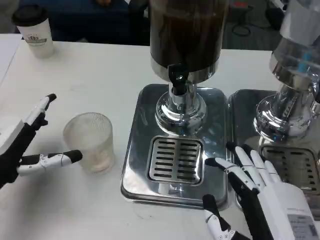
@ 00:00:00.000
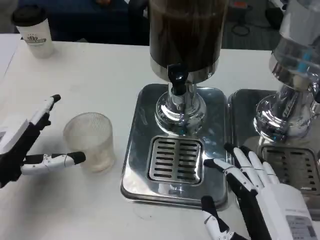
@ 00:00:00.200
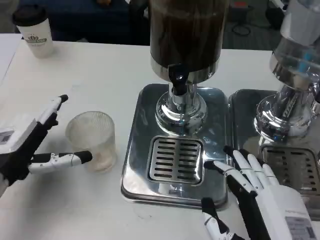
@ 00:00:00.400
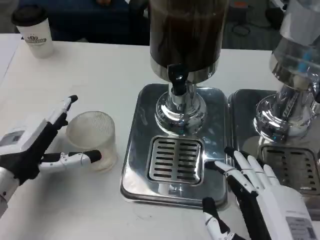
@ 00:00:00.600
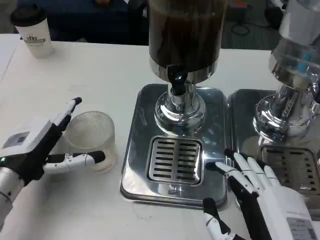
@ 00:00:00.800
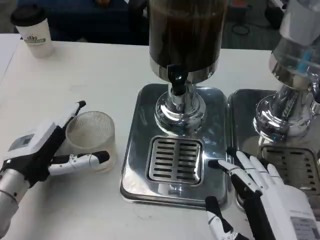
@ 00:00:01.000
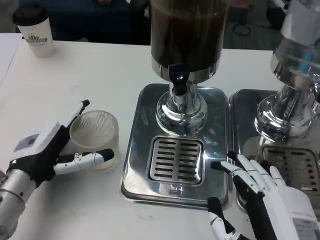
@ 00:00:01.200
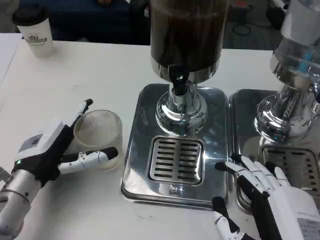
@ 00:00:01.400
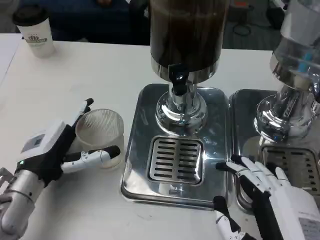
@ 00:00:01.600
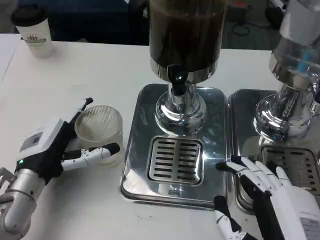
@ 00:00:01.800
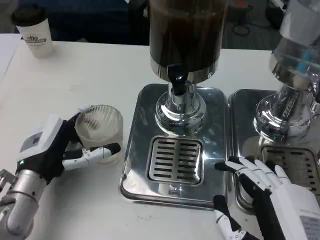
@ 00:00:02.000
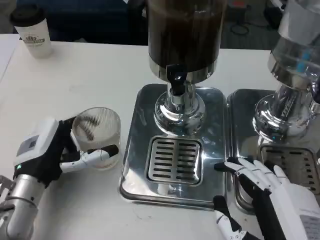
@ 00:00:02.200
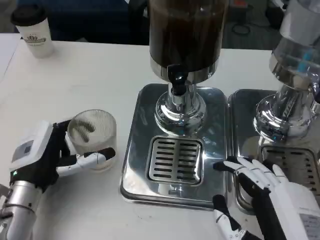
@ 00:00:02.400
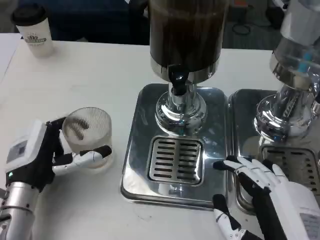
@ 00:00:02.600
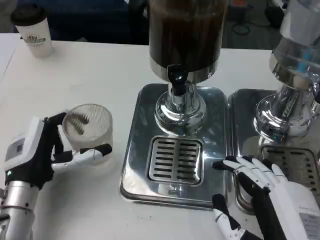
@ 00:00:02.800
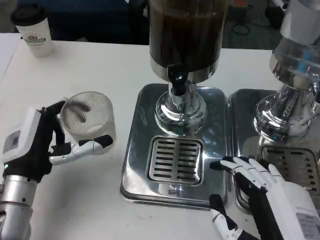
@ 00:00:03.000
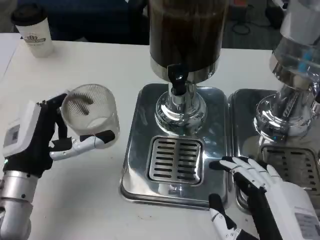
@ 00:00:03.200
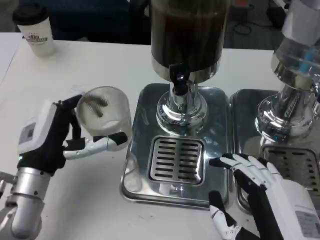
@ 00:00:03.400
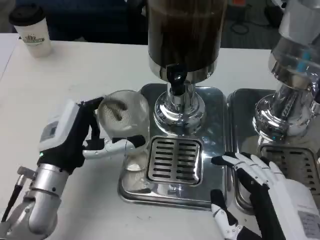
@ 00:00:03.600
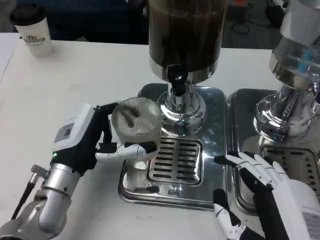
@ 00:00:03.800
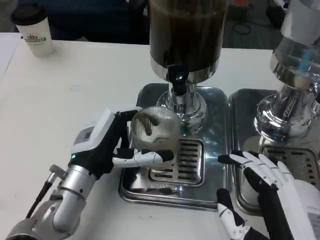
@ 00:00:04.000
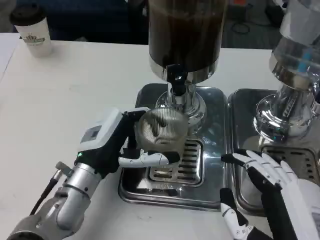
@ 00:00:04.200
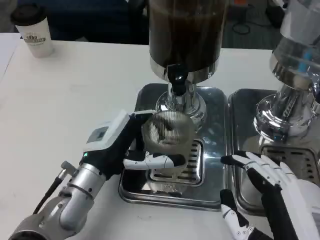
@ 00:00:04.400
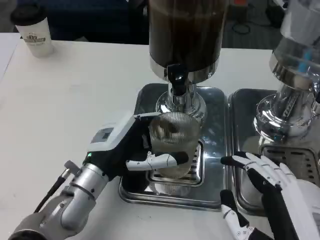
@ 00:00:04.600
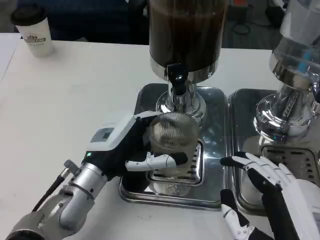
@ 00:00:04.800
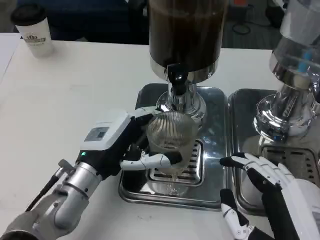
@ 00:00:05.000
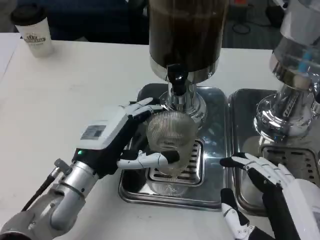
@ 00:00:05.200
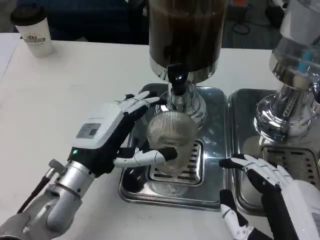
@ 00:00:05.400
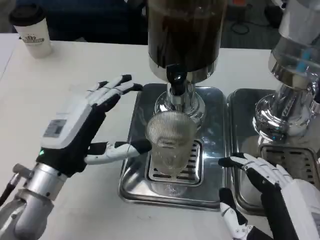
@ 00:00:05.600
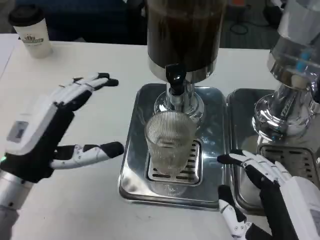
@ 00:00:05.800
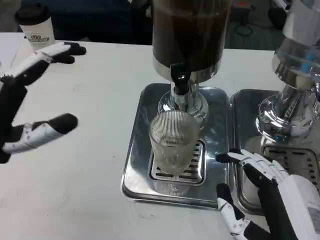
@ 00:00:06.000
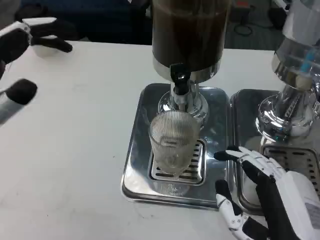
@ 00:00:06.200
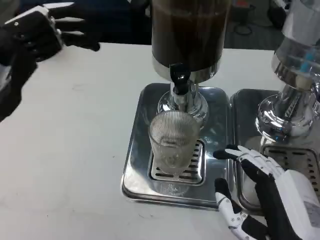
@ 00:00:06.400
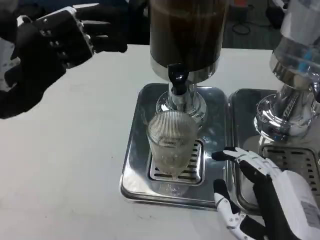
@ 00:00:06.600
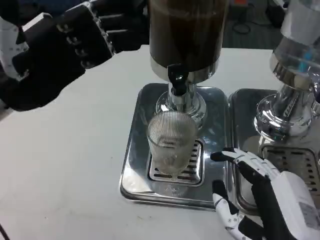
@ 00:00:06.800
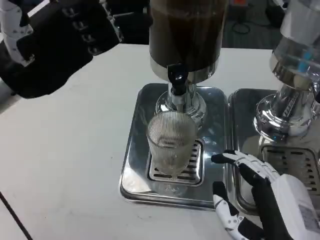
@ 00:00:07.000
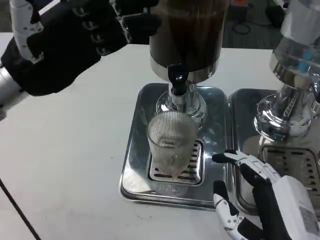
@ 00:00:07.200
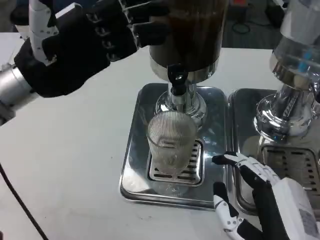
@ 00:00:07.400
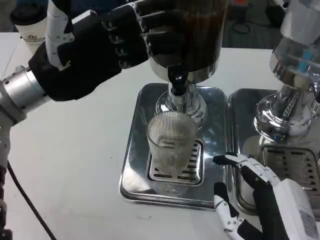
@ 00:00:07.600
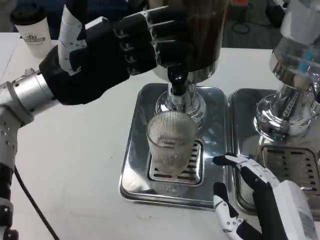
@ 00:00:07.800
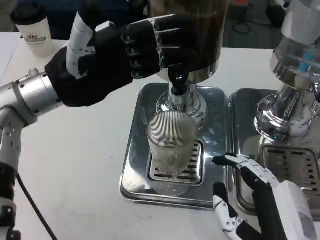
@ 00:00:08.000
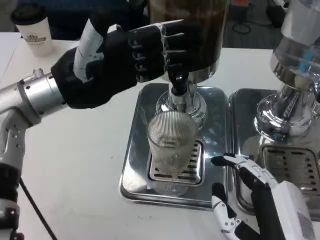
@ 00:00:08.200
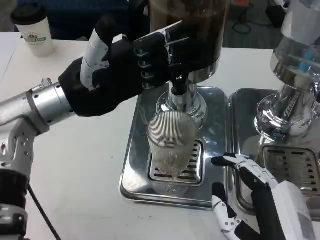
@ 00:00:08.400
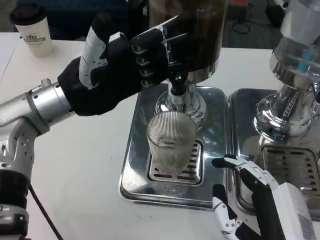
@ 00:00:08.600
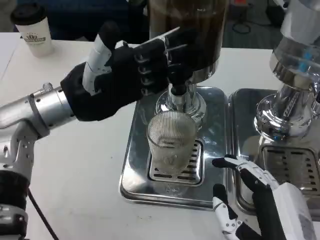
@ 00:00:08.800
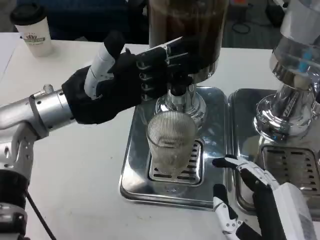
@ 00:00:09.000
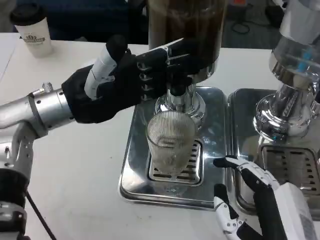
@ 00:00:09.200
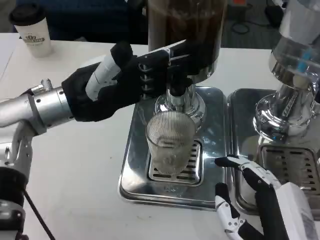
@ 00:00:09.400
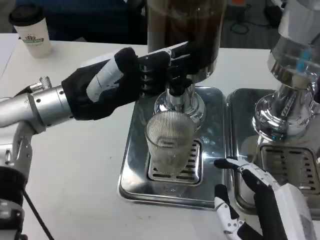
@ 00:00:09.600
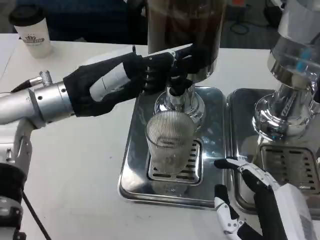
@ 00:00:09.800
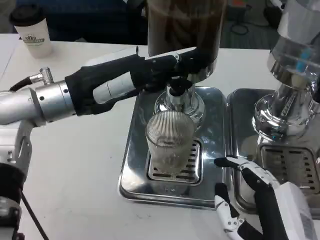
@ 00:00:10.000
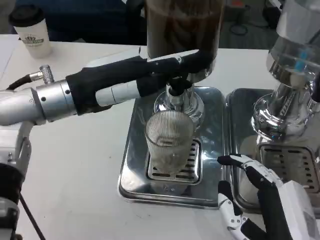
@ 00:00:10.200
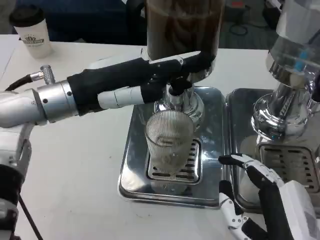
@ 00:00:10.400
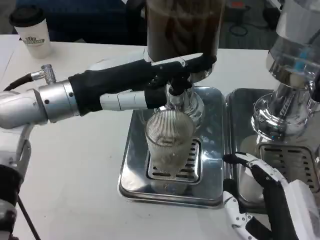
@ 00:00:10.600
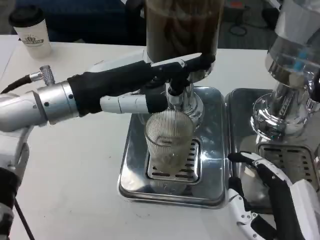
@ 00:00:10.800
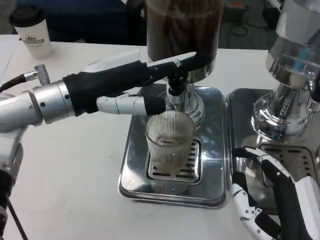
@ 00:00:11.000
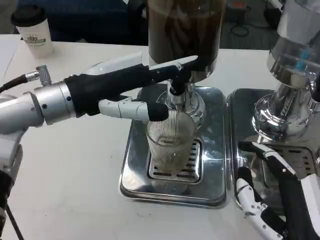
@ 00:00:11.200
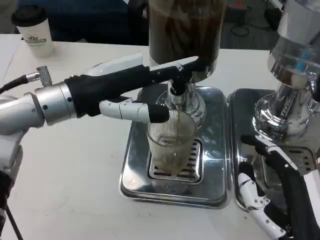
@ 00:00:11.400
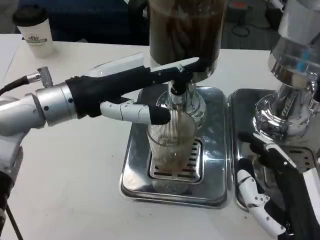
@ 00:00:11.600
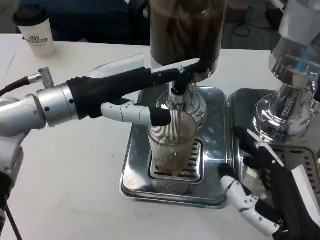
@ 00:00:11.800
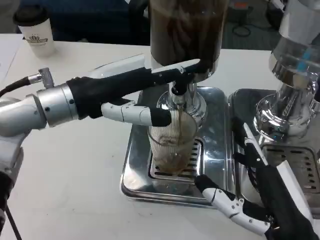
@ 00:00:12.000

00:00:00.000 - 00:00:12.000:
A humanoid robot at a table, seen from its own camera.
Task of the whole recording: Grasp the cup under the faucet to collect the drink, then remove the cup.
00:00:00.000 - 00:00:01.600: The left hand heads to the right, covering roughly 5 cm.
00:00:03.000 - 00:00:04.400: The left hand heads to the right, covering roughly 10 cm.
00:00:04.400 - 00:00:06.000: The left hand moves to the left, upward and backward, roughly 15 cm.
00:00:06.000 - 00:00:07.600: The left hand heads forward and upward, covering approximately 15 cm.

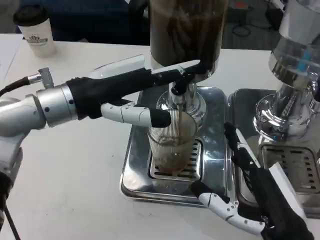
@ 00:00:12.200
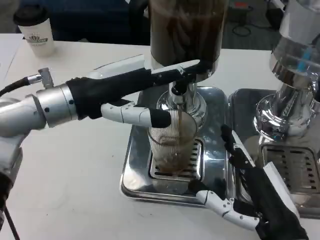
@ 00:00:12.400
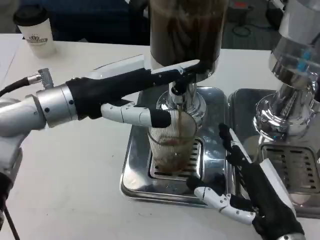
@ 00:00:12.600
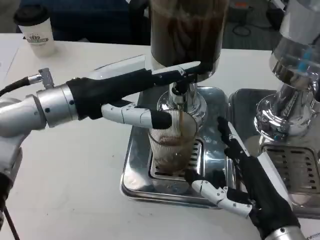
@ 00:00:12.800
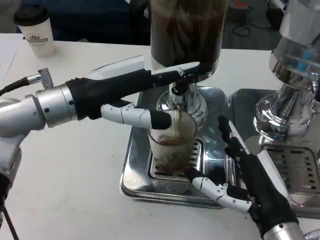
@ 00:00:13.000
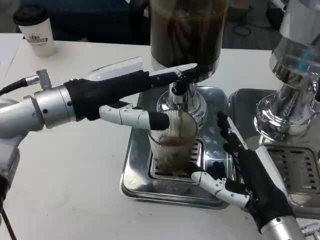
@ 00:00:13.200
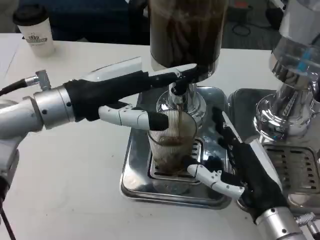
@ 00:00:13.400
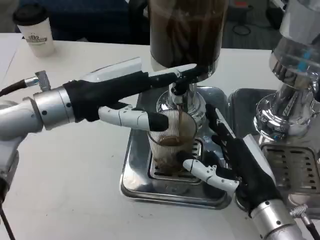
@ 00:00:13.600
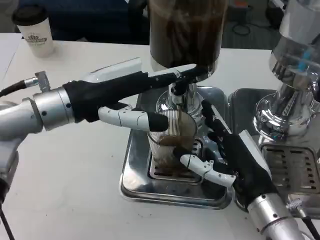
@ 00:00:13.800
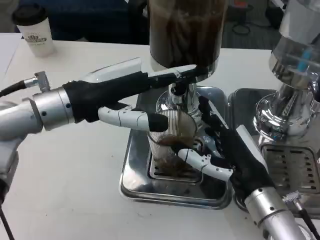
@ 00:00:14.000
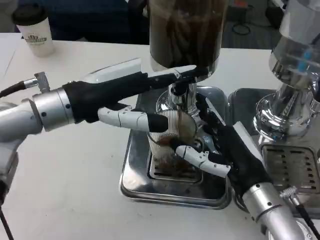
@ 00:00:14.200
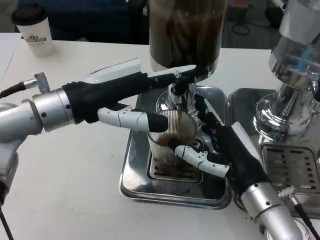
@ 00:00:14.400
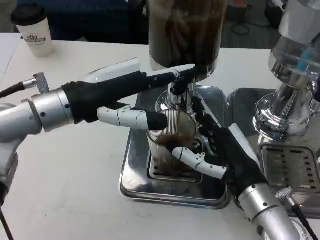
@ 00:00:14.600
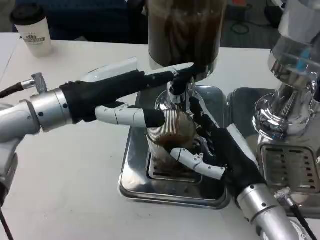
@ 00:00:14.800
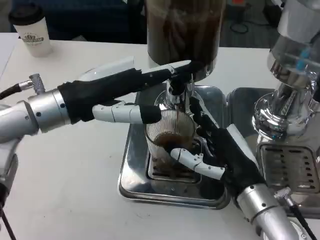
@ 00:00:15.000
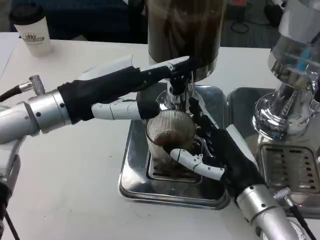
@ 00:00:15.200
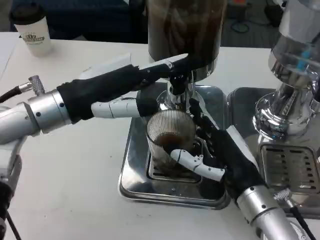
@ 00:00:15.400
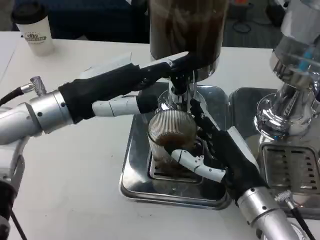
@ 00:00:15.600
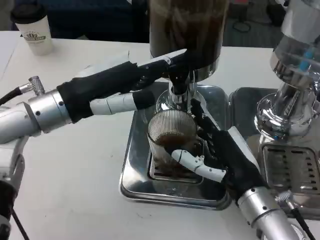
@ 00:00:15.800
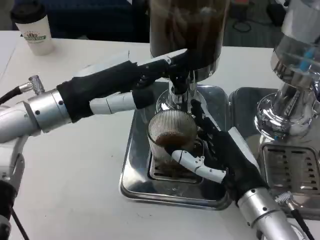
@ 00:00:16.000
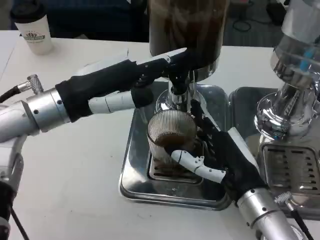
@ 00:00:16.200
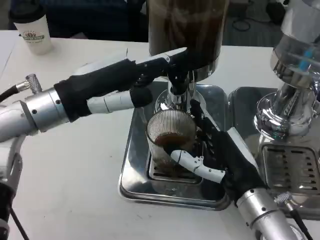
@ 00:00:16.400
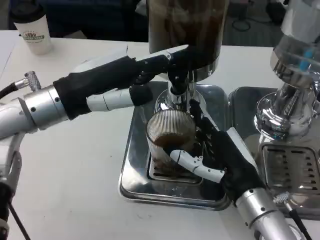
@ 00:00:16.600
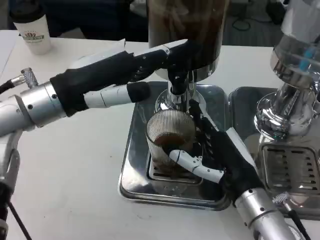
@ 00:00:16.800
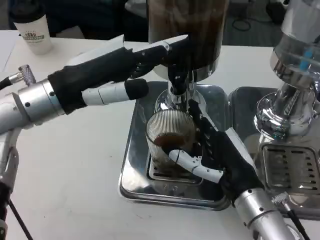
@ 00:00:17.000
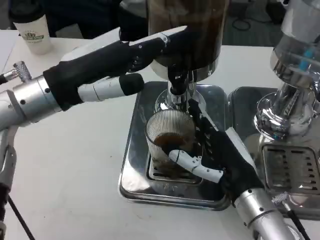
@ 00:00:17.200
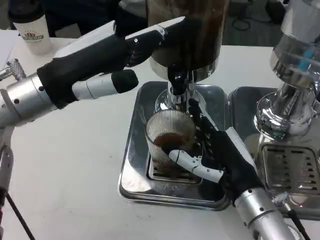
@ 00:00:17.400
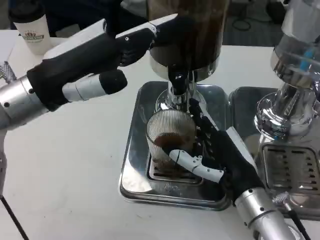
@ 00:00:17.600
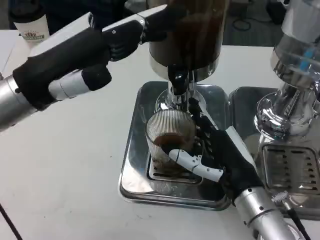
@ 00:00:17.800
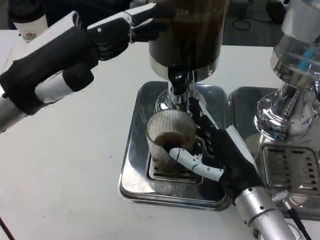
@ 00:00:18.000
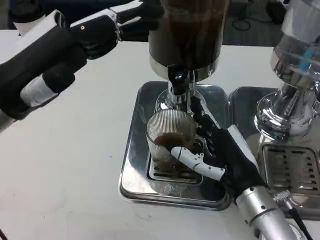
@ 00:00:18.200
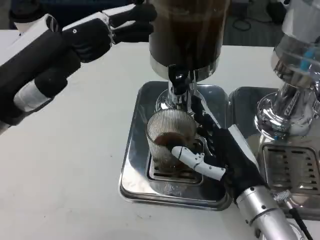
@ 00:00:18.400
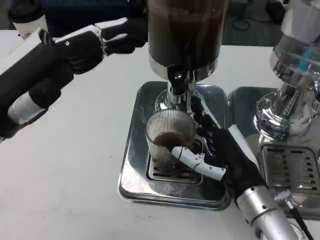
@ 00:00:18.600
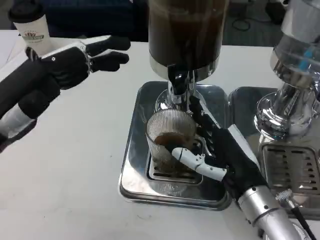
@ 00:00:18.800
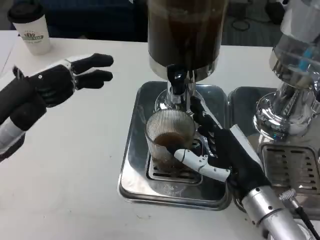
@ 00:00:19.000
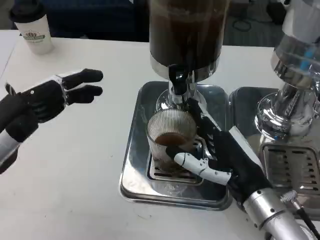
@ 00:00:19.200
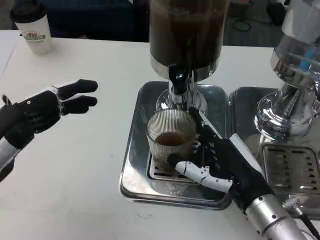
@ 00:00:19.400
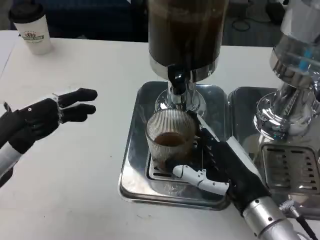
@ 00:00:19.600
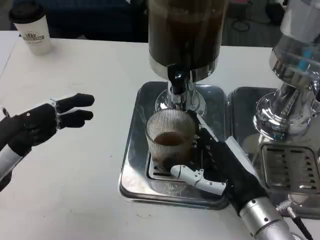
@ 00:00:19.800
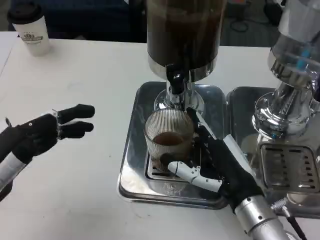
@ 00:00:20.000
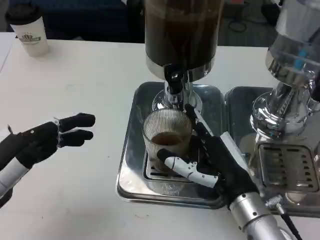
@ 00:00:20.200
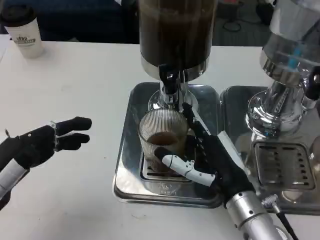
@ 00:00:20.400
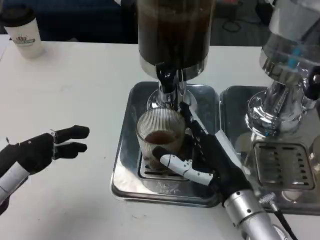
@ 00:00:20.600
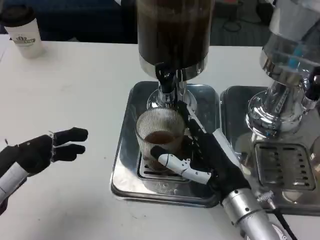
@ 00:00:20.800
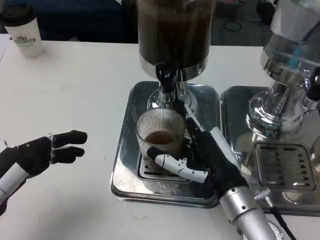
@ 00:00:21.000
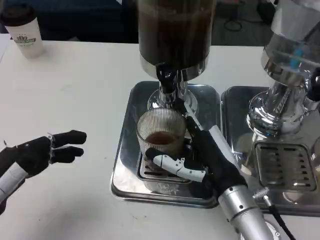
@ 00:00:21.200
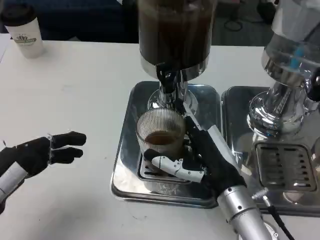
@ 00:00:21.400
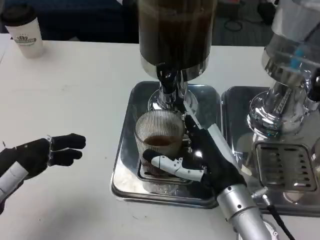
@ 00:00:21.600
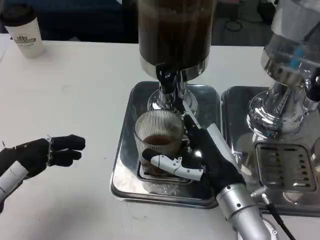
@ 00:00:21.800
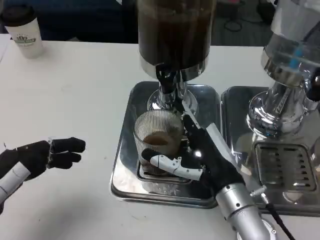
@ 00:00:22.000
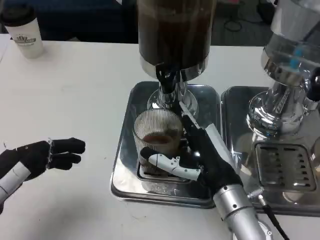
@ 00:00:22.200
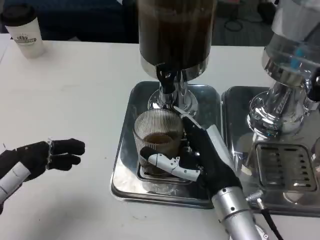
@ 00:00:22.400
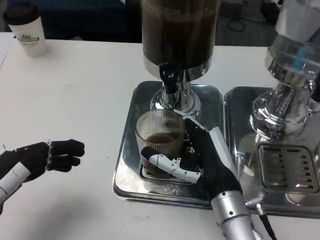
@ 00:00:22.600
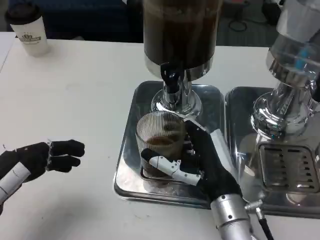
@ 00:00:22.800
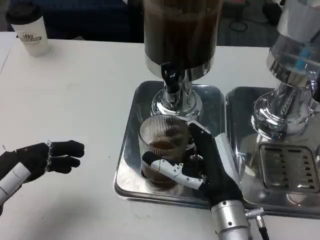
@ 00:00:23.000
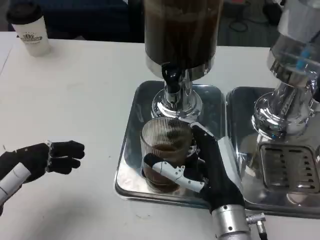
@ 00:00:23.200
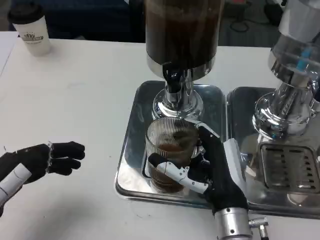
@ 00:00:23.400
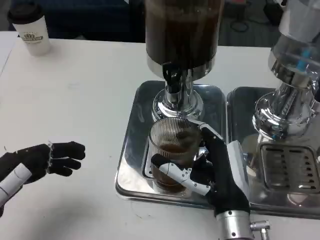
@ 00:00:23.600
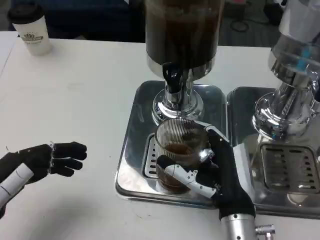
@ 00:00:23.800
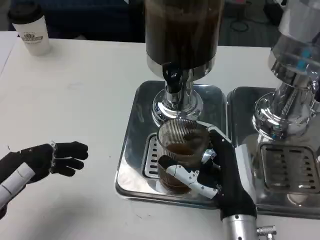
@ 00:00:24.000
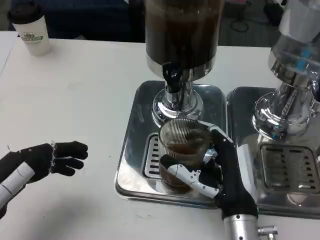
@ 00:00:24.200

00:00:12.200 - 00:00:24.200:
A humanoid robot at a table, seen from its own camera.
Task of the whole recording: Grasp the cup under the faucet to collect the drink, then remove the cup.
00:00:12.200 - 00:00:13.800: The right hand shifts some 10 cm forward.
00:00:16.600 - 00:00:18.200: The left hand ends up approximately 5 cm from where it was.
00:00:18.200 - 00:00:19.800: The left hand heads backward and downward, covering some 10 cm.
00:00:21.200 - 00:00:22.600: There are only small adjustments of the hands.
